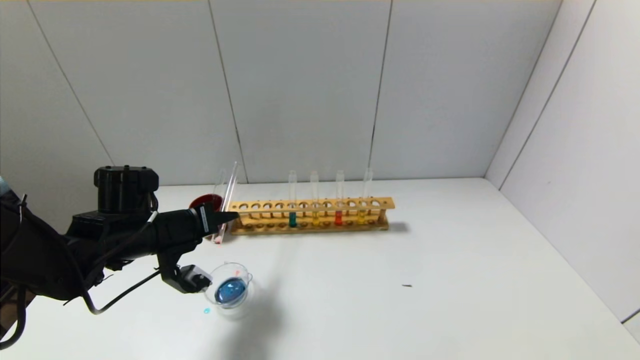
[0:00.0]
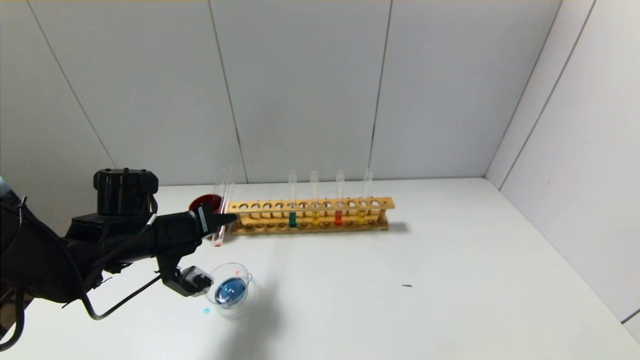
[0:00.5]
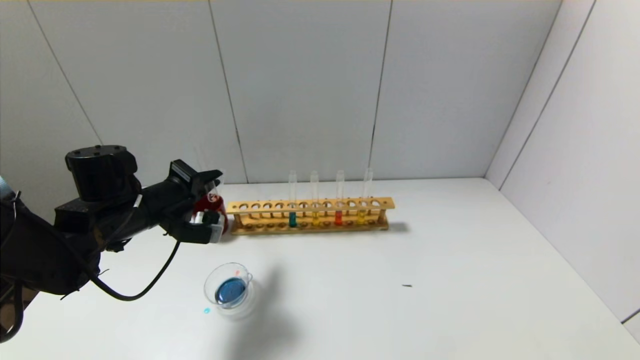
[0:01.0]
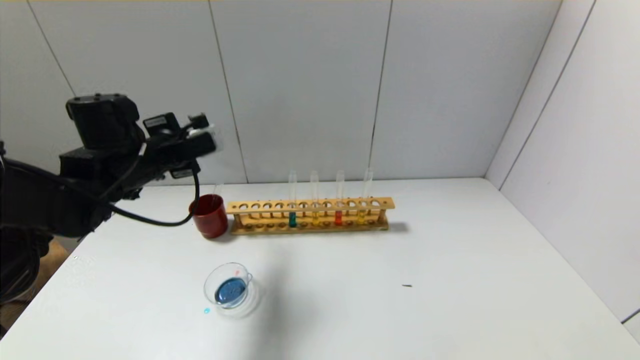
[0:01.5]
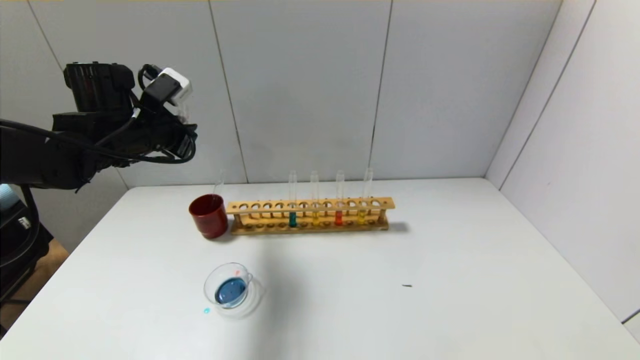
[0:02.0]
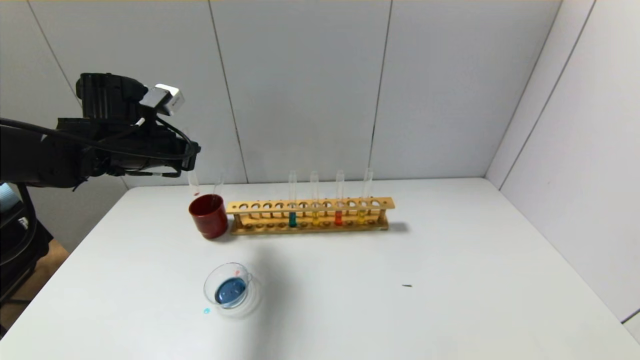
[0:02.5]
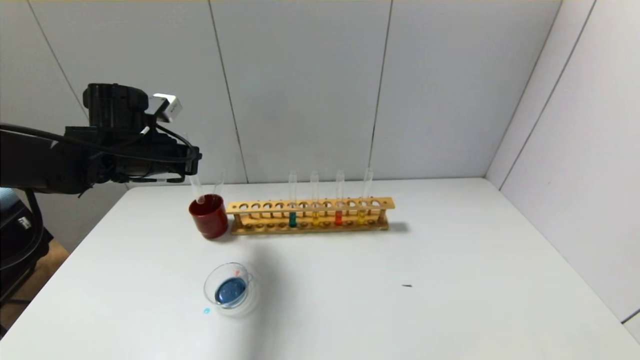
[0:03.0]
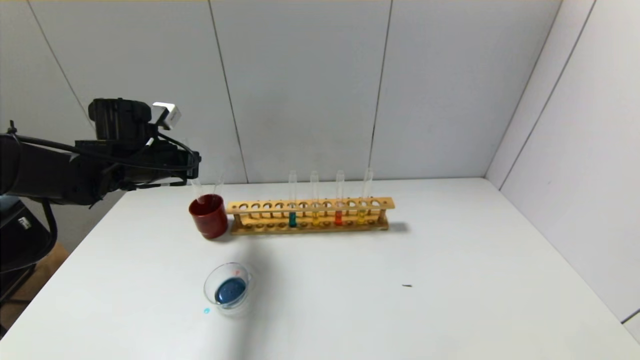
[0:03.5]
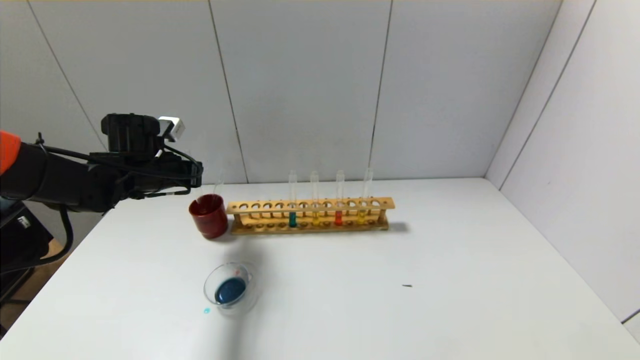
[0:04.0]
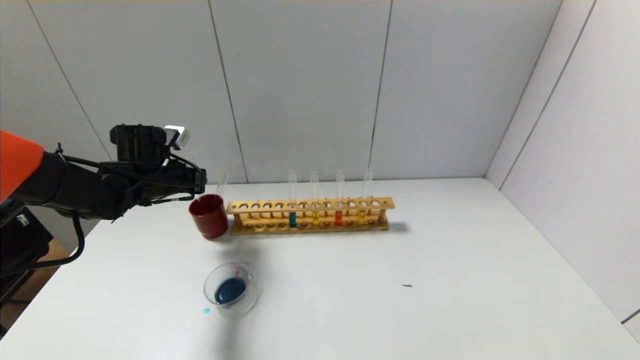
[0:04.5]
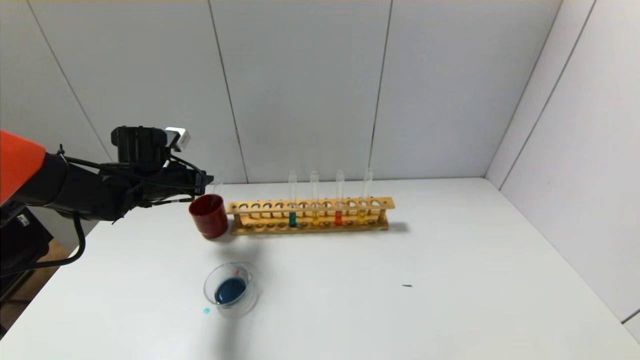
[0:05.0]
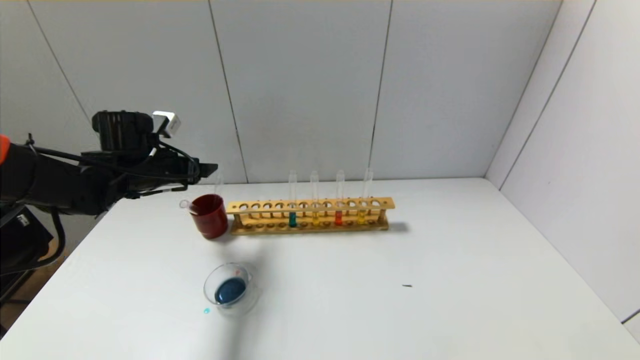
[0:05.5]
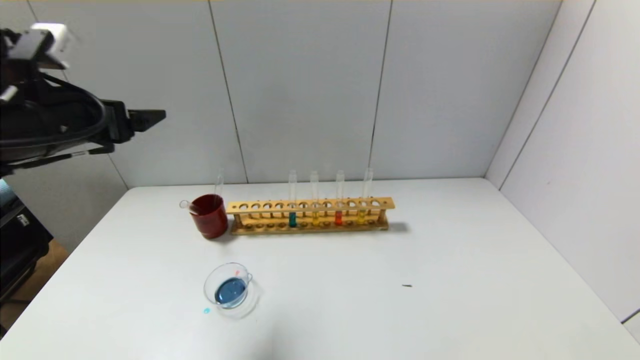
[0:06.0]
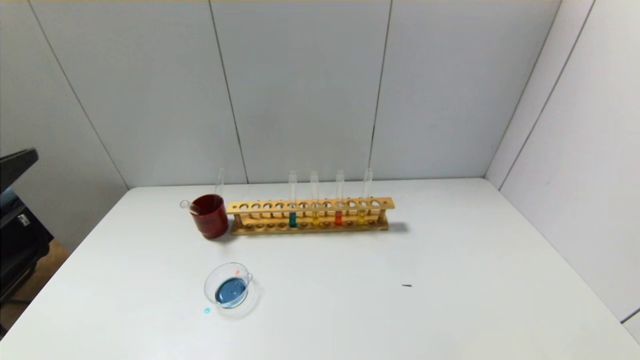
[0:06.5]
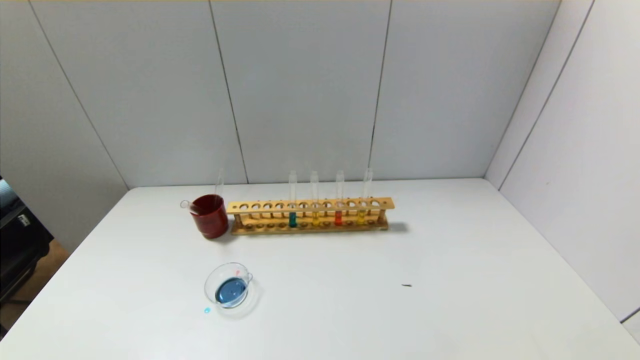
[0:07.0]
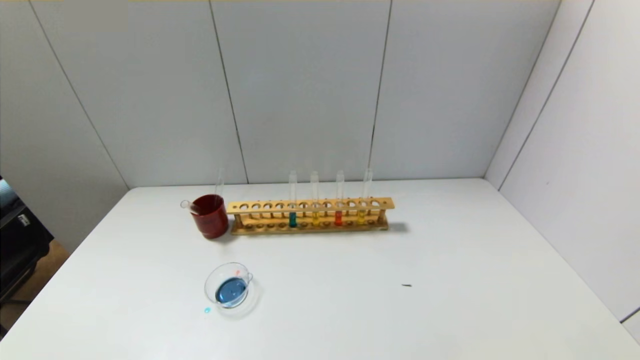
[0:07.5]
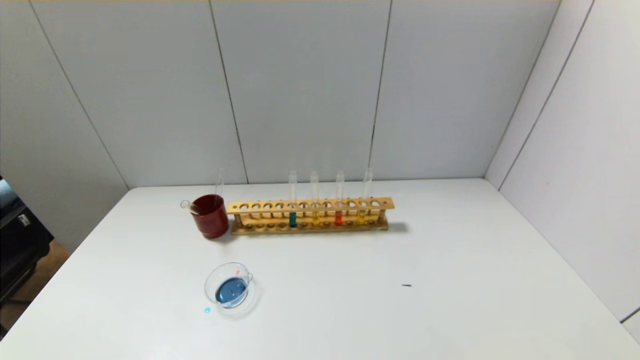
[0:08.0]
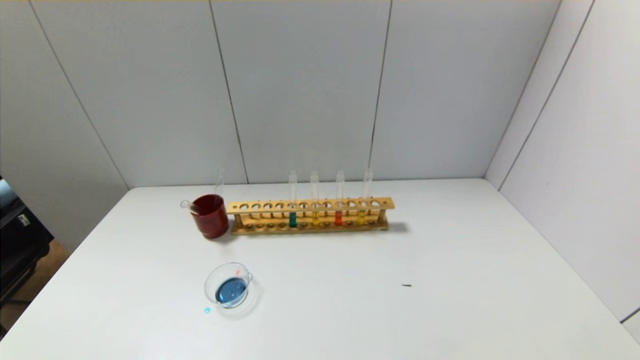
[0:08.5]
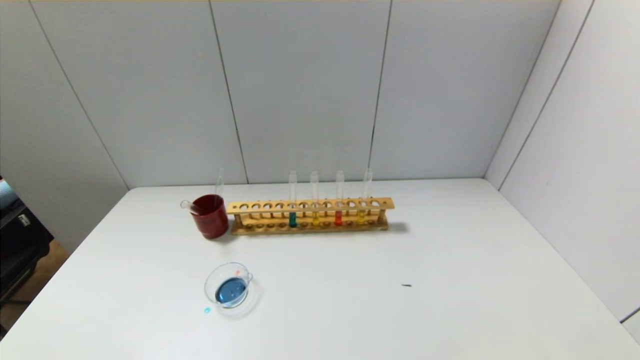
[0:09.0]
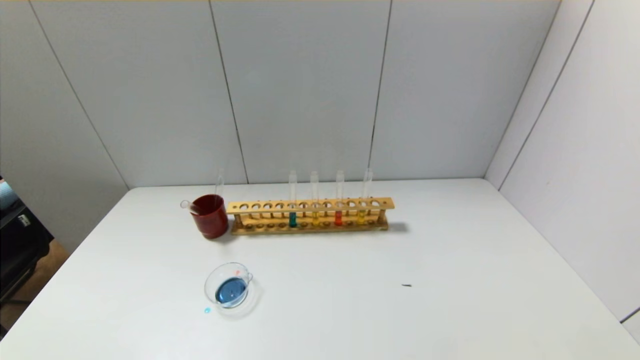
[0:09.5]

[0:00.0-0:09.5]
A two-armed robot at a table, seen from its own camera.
Step, 0:01.0 to 0:05.0: Place the test tube into the brown cup with the left gripper.
0:00.0 to 0:02.0: The left gripper heads upward and forward, covering approximately 15 cm.
0:02.0 to 0:04.0: The left gripper is displaced downward by about 10 cm.
0:04.0 to 0:05.5: The left gripper opens its fingers.
0:05.5 to 0:07.5: The left gripper shifts about 40 cm backward.

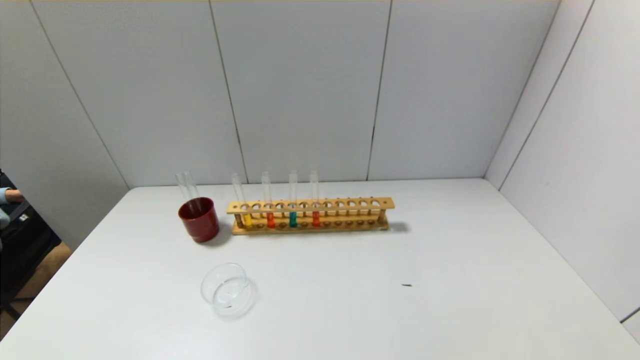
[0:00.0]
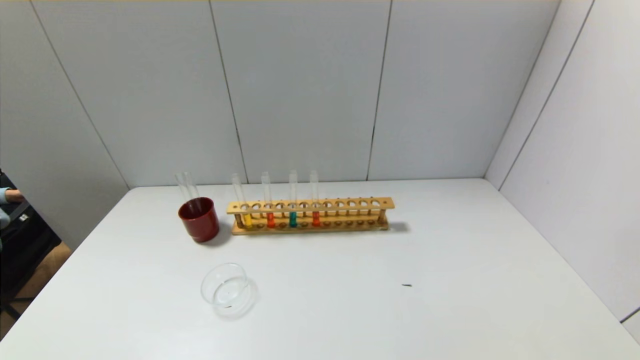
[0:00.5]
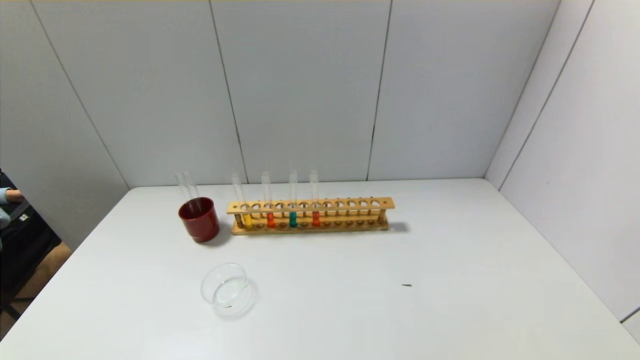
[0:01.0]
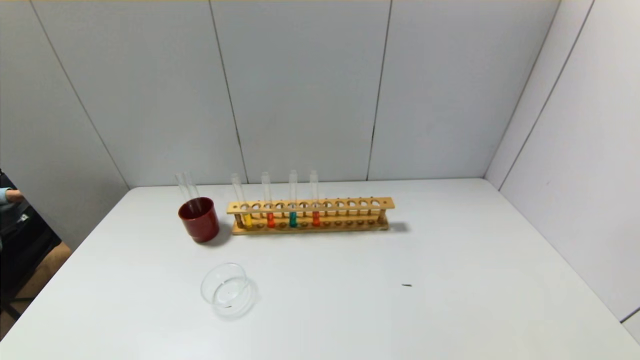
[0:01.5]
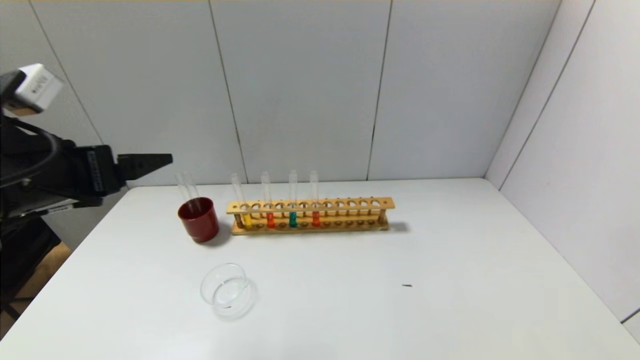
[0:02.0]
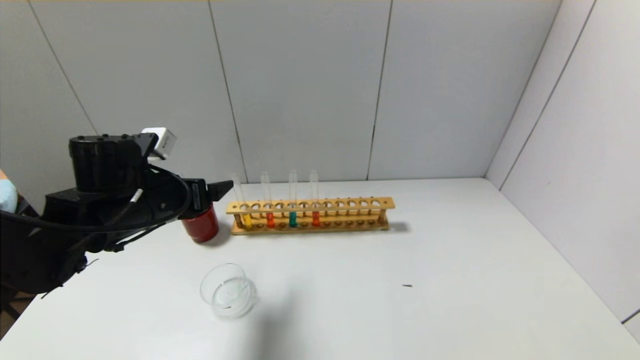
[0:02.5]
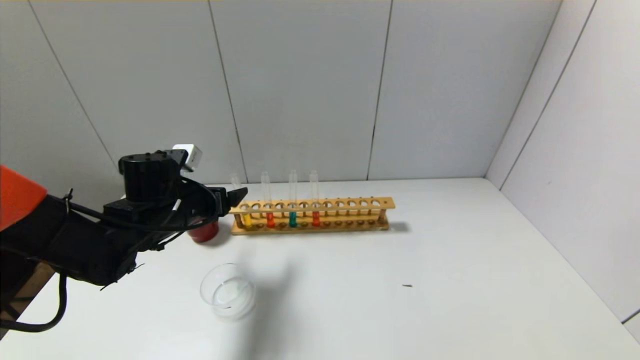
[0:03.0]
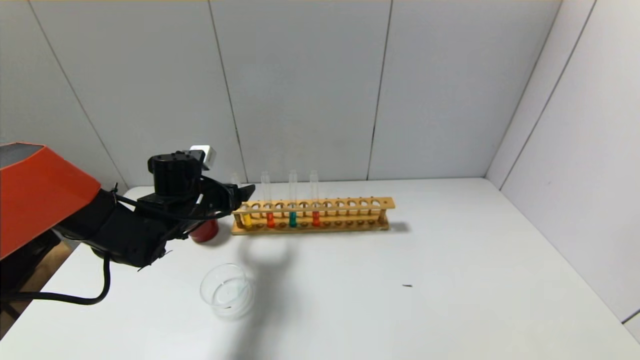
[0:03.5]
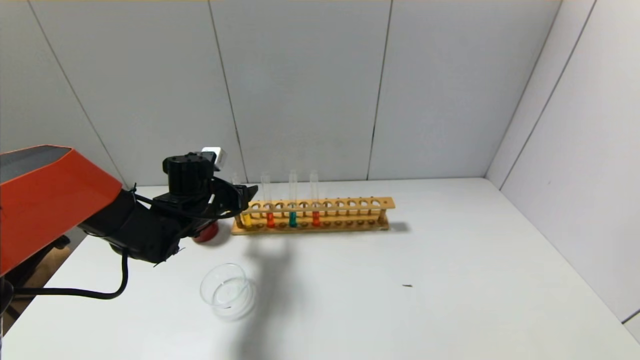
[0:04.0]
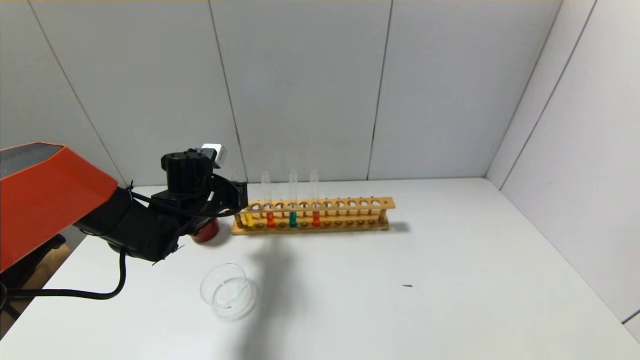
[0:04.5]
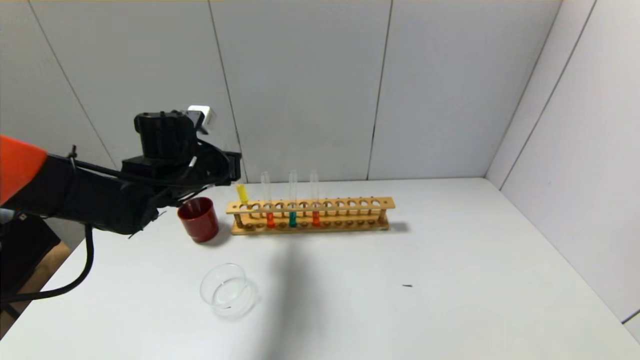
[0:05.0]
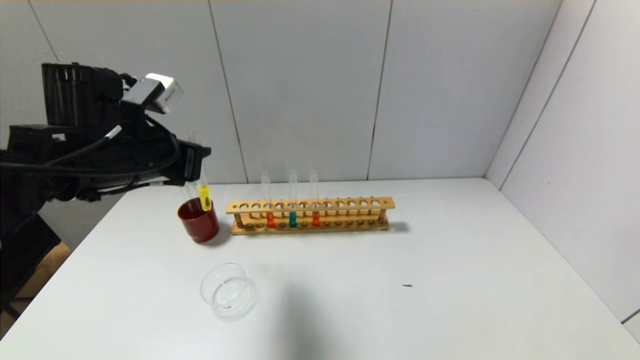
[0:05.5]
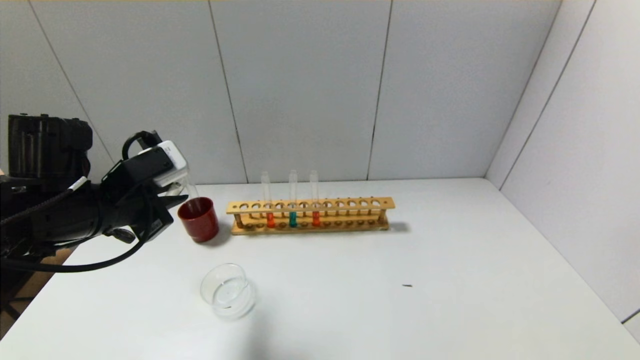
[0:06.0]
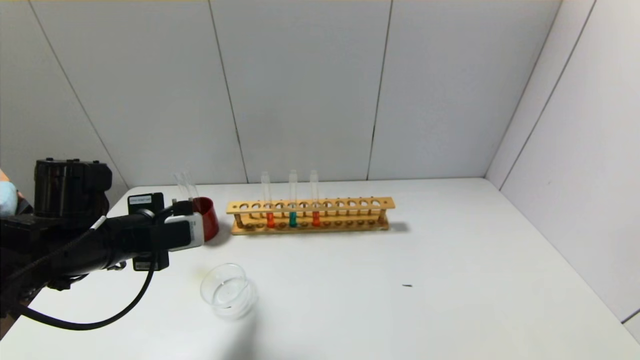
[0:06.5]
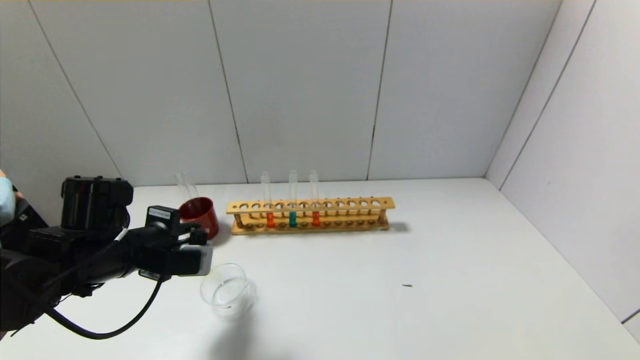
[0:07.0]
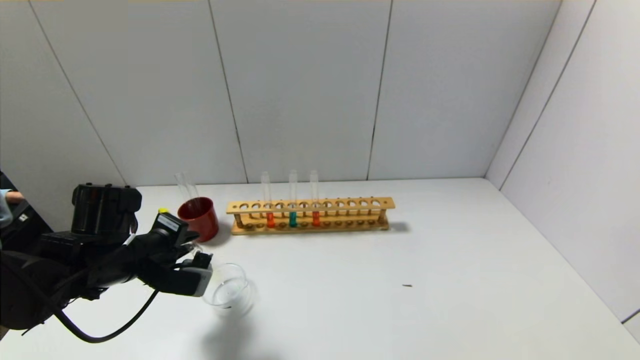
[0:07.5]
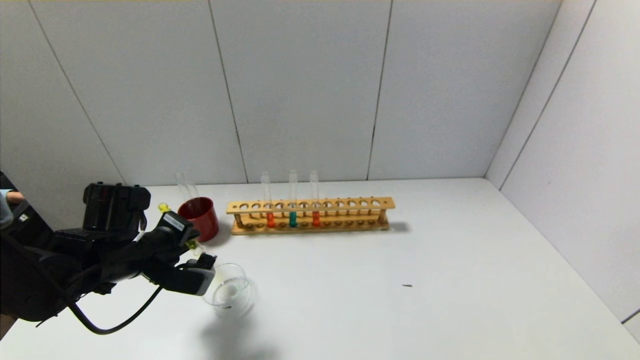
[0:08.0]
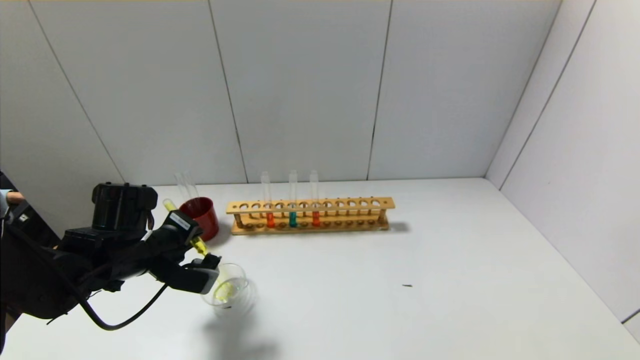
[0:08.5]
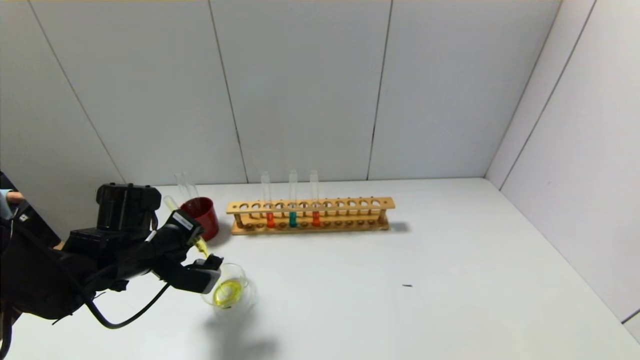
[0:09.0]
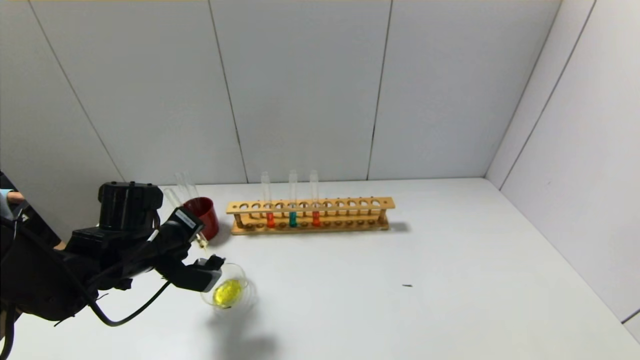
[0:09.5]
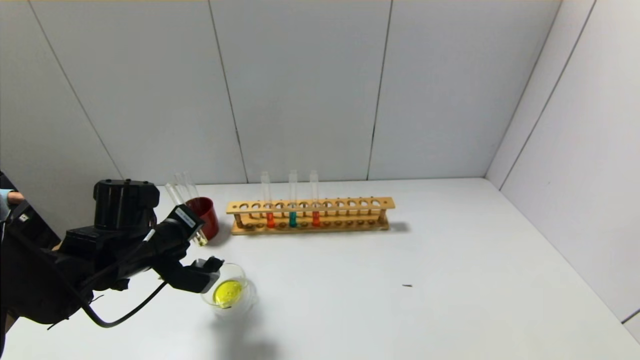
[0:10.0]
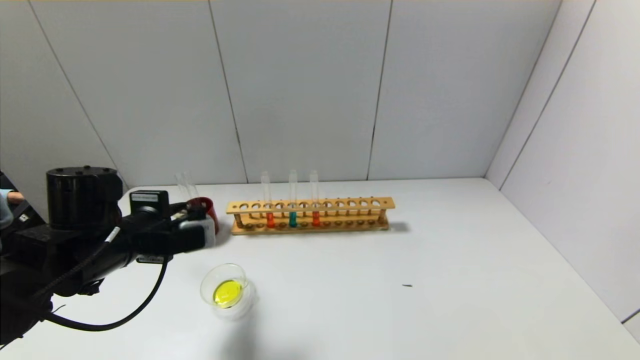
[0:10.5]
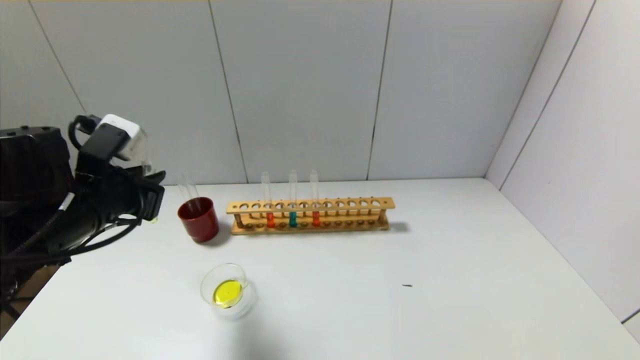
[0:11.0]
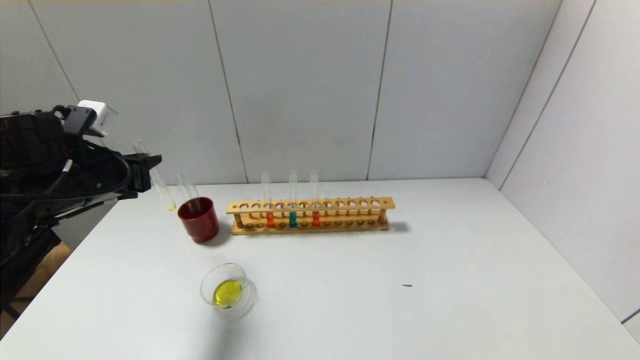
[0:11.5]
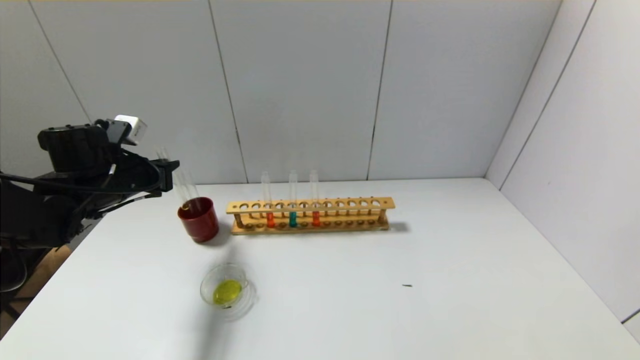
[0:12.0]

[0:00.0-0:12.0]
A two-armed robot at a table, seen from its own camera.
Step, 0:00.0 to 0:04.0: Grasp the yellow reagent with the left gripper.
Step, 0:04.5 to 0:10.0: Pour the yellow reagent into the graduated cylinder with the left gripper.
0:00.0 to 0:02.0: The left gripper goes roughly 30 cm forward and upward.
0:02.0 to 0:04.0: The left gripper goes about 25 cm forward and downward.
0:04.0 to 0:06.0: The left gripper moves backward and upward, some 15 cm, and closes.
0:06.0 to 0:08.0: The left gripper travels downward by approximately 10 cm.
0:08.0 to 0:10.0: There are only small adjustments of the grippers.
0:10.0 to 0:12.0: The left gripper moves forward and to the left, about 10 cm.
